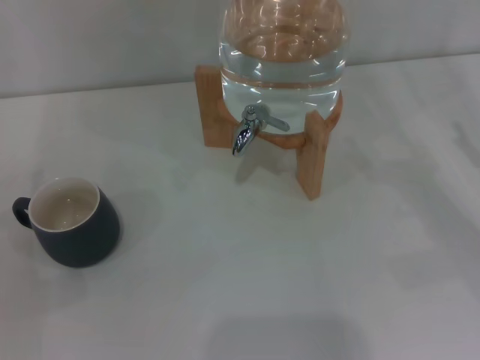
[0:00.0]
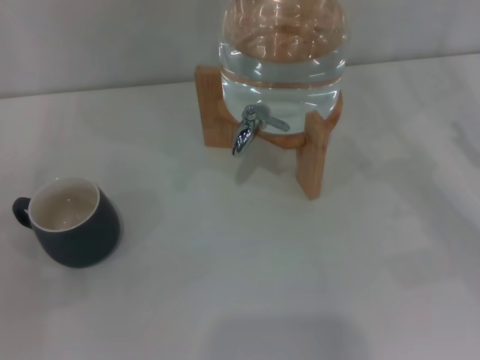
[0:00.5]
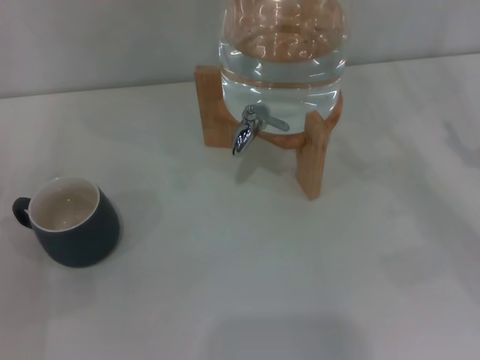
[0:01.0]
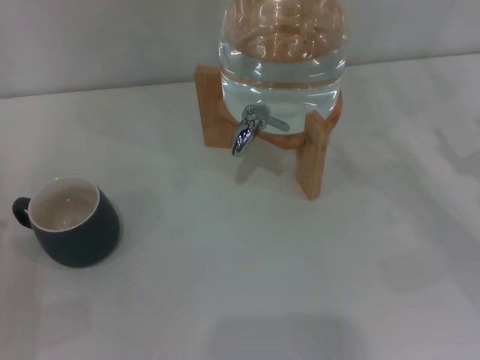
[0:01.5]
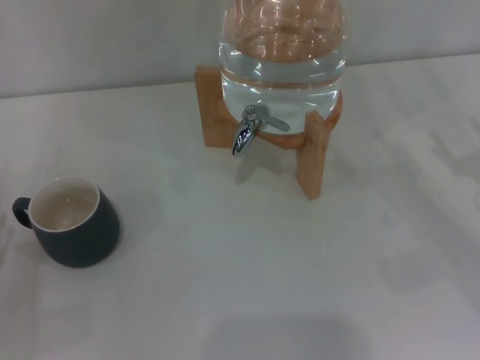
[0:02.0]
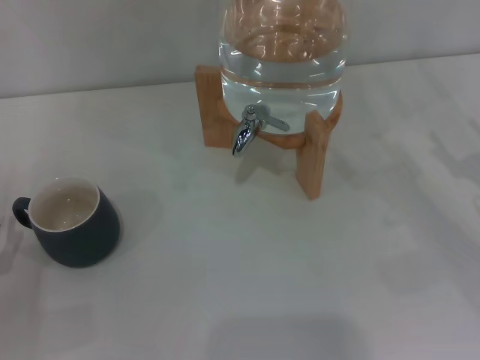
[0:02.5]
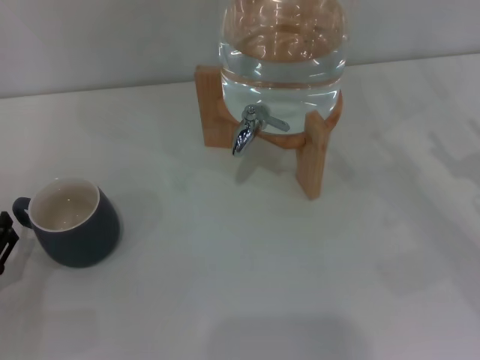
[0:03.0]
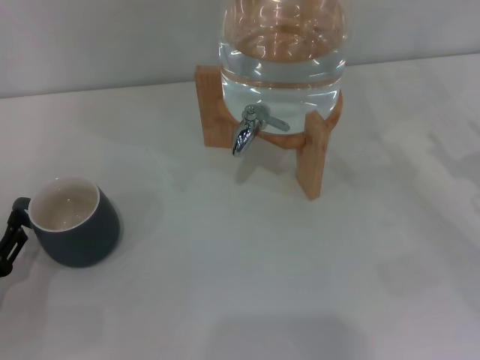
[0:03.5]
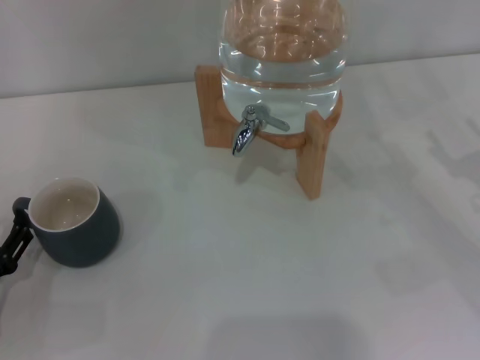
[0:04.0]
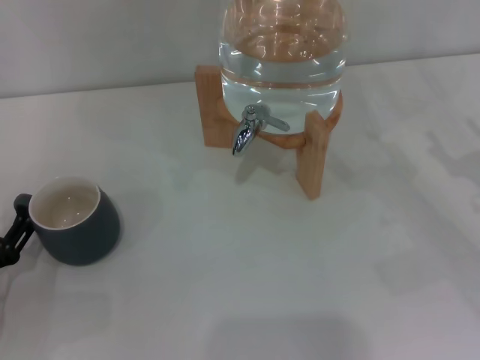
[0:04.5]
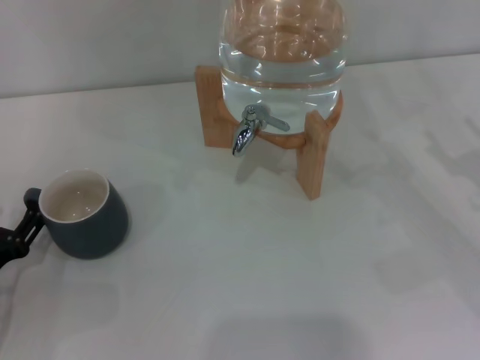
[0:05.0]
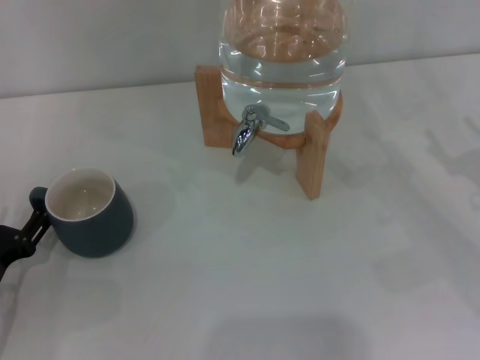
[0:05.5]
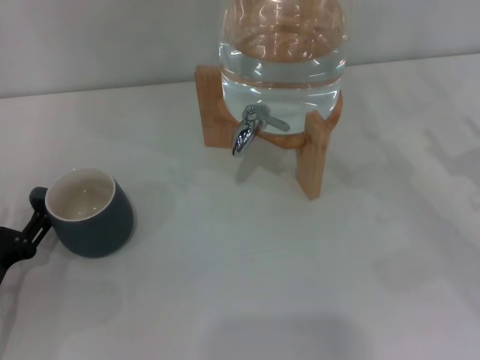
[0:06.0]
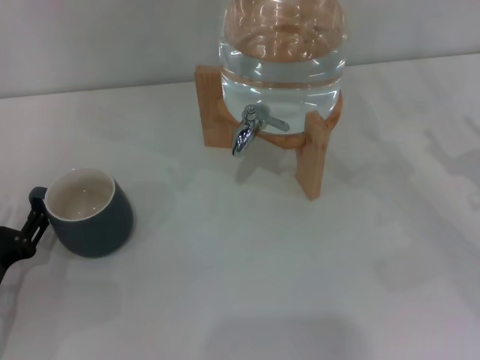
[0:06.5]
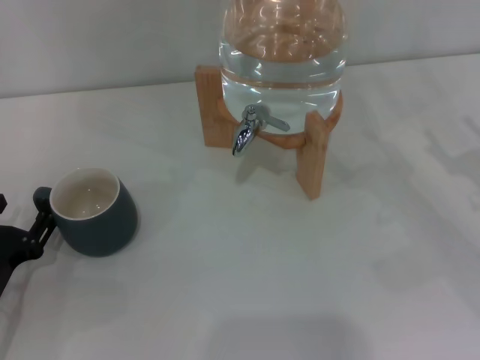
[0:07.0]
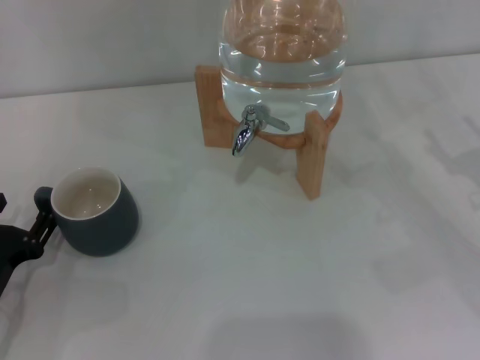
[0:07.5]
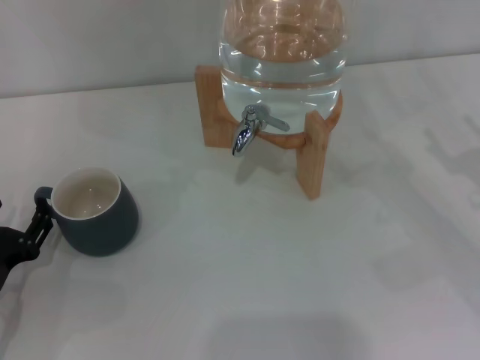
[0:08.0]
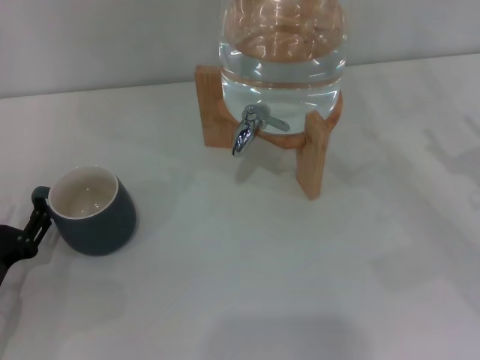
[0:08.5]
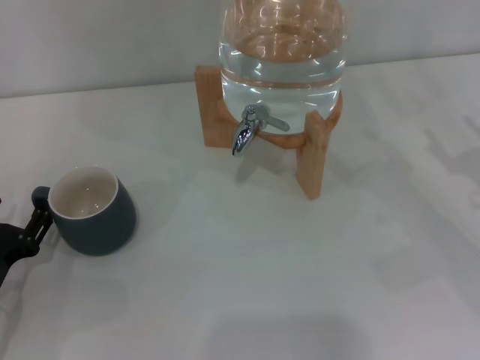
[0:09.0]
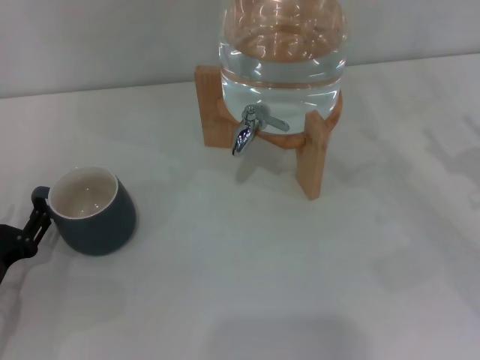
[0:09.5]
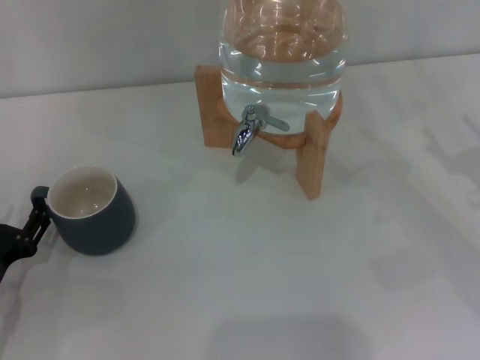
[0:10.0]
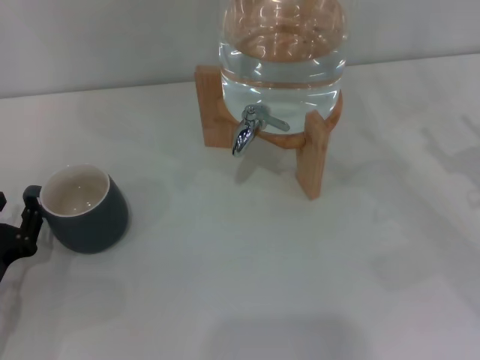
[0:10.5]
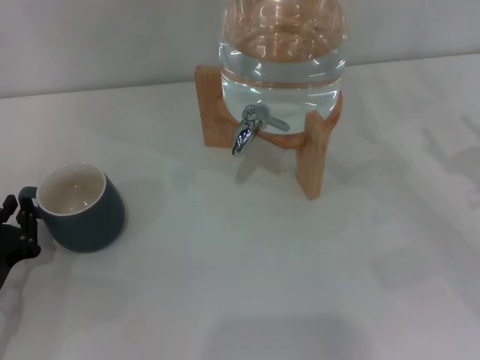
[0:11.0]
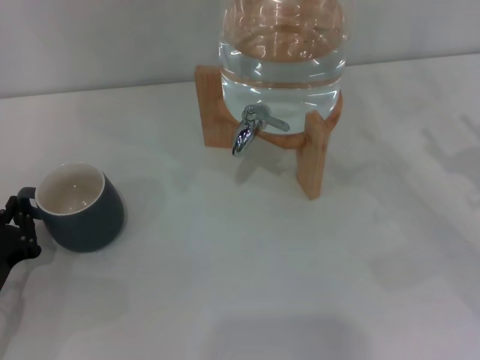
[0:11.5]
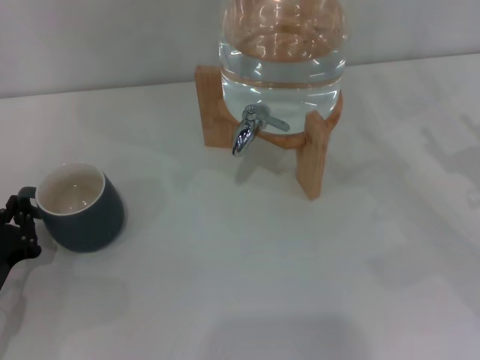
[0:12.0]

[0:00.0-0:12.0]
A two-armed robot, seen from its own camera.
Task of the whole recording: the left gripper pick up the black cup and place it horizontally under the faucet, the right gripper turn on the faucet to fill the cup, and then turn off the faucet.
0:04.0 to 0:06.0: There are only small adjustments of the grippers.
0:06.0 to 0:10.0: Both grippers stay about where they are.
0:10.0 to 0:12.0: The left gripper closes.

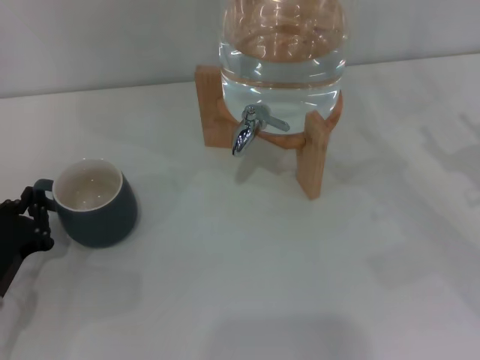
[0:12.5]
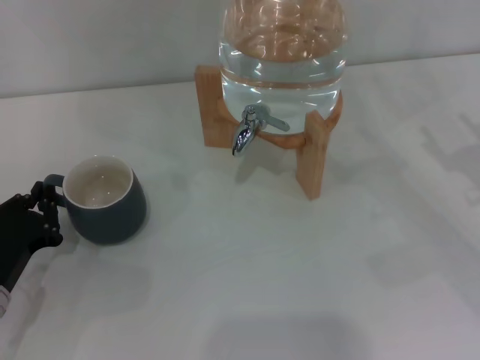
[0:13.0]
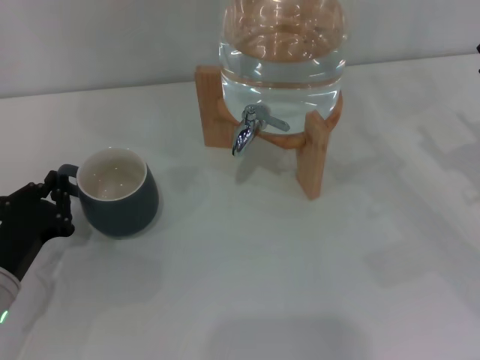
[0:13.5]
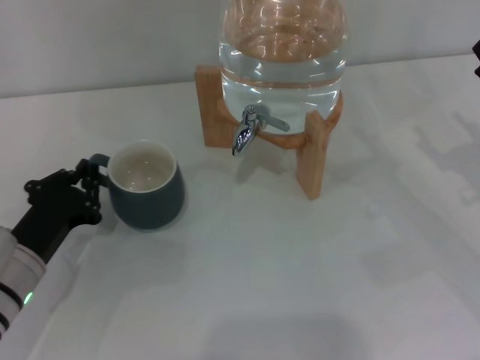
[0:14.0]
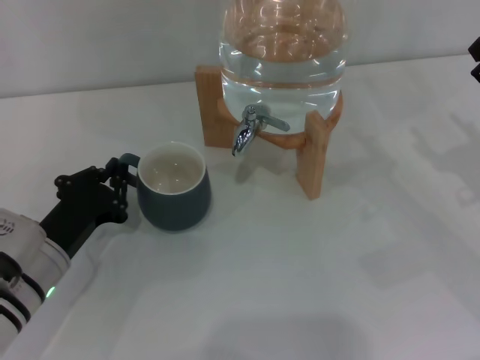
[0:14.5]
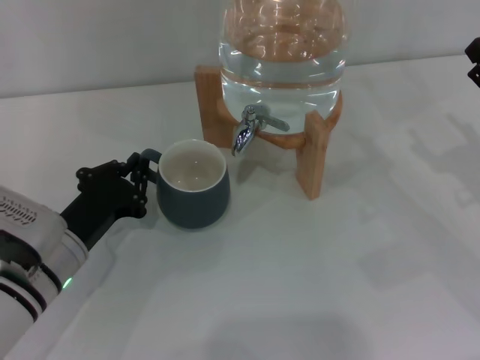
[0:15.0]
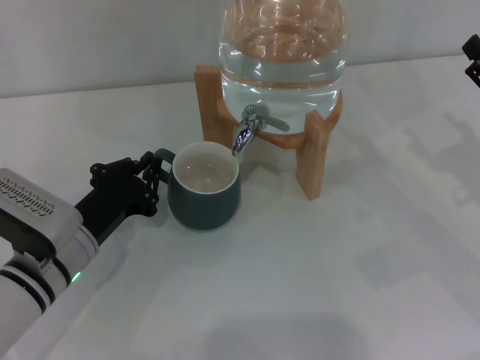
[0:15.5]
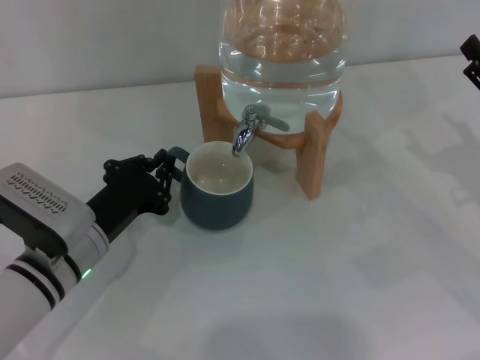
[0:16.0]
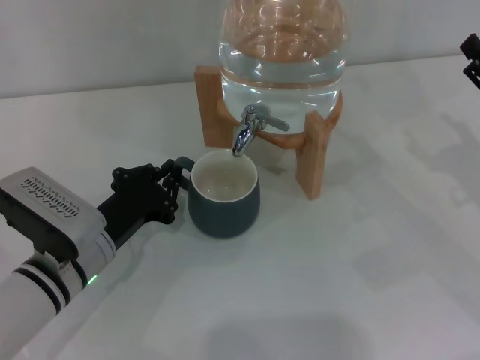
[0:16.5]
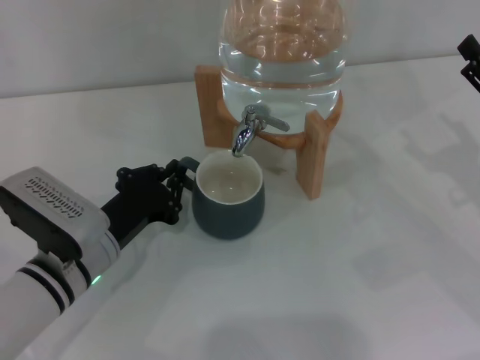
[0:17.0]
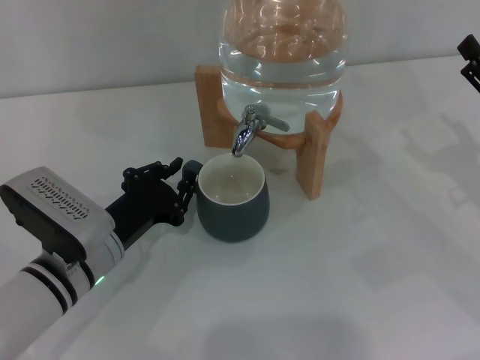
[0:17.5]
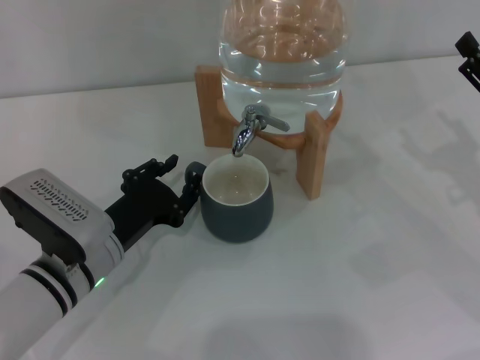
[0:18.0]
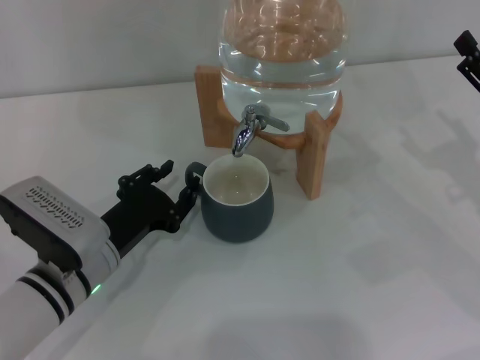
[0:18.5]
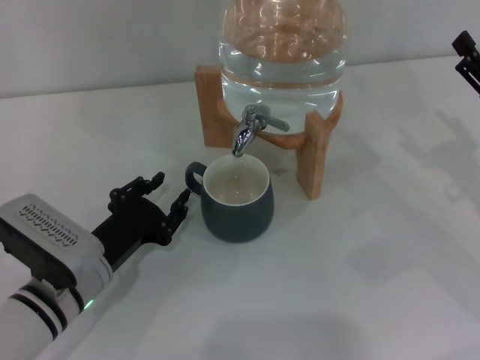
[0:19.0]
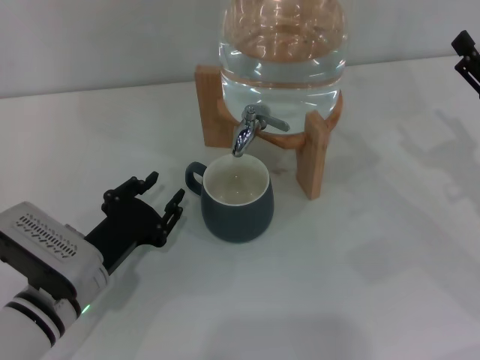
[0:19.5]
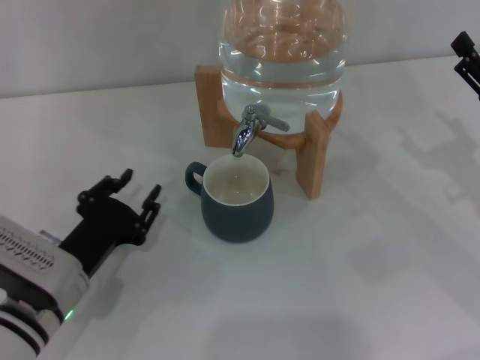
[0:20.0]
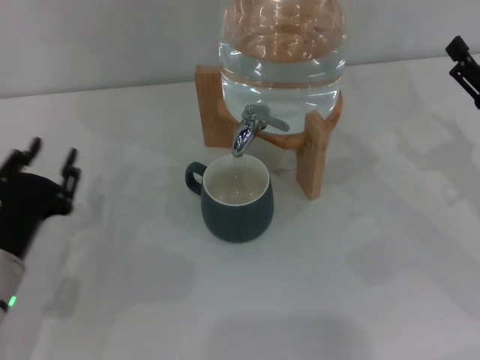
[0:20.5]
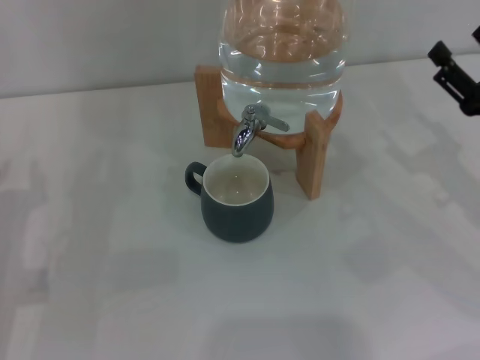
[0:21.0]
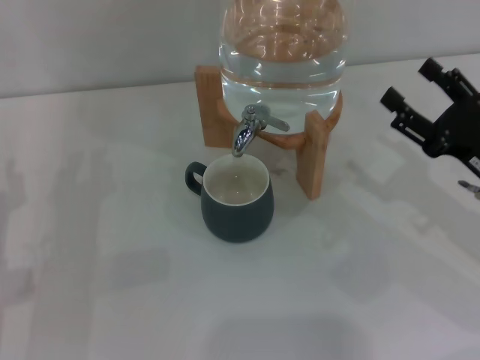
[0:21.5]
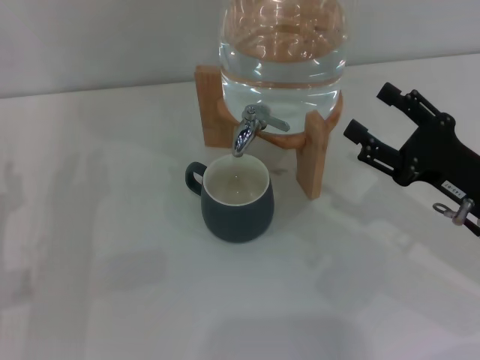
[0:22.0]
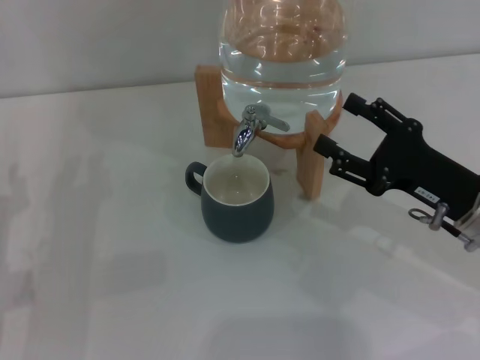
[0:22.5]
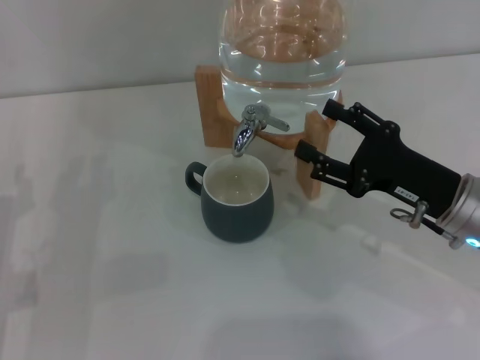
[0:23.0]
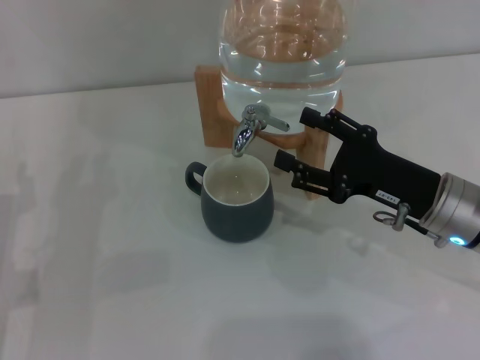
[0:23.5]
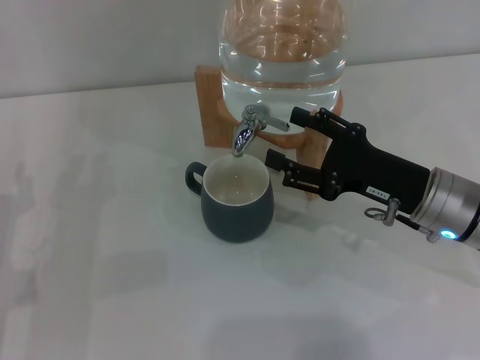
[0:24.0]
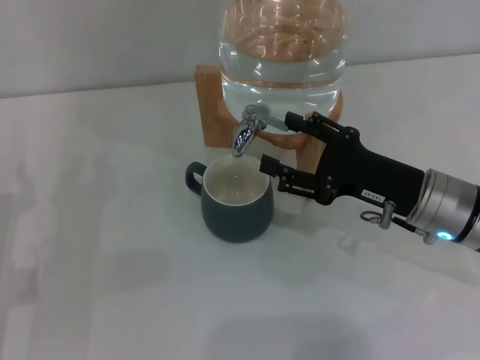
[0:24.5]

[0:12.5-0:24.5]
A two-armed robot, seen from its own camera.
Task of the whole recording: the left gripper pick up the black cup and place it horizontally under the faucet, the right gripper turn on the faucet to fill the cup, and then turn off the faucet.
Step, 0:12.5 to 0:19.5: Move the cup beneath the water dispenser nozzle with the left gripper.
0:12.5 to 0:14.5: The left gripper travels to the right by about 5 cm.
0:14.5 to 0:16.5: The grippers stay close to where they were, moving slightly.
0:16.5 to 0:18.5: The left gripper opens.
0:18.5 to 0:20.5: The left gripper heads to the left, covering some 5 cm.
0:20.5 to 0:22.5: The right gripper is displaced to the left by about 5 cm.
0:22.5 to 0:24.5: The grippers stay close to where they were, moving slightly.

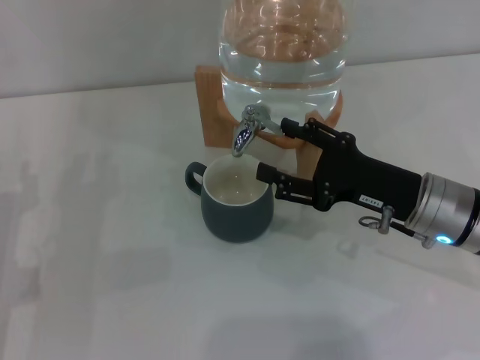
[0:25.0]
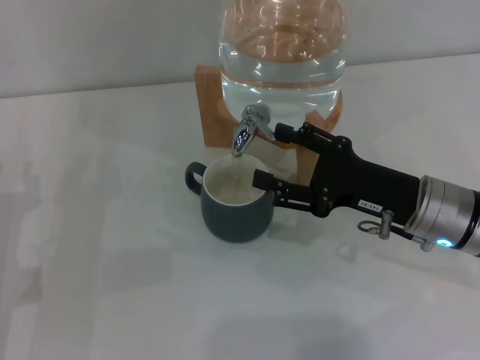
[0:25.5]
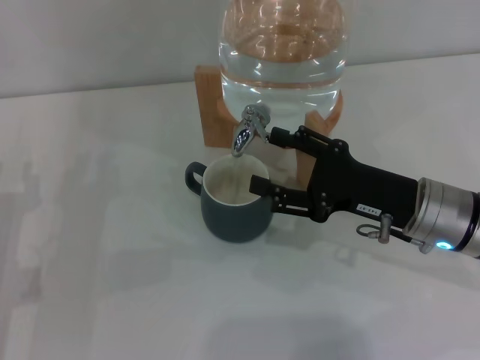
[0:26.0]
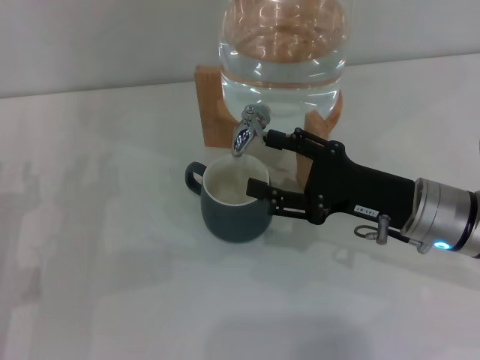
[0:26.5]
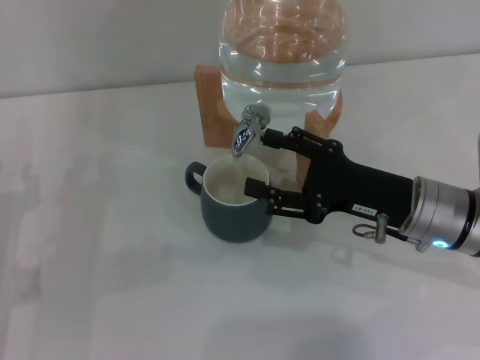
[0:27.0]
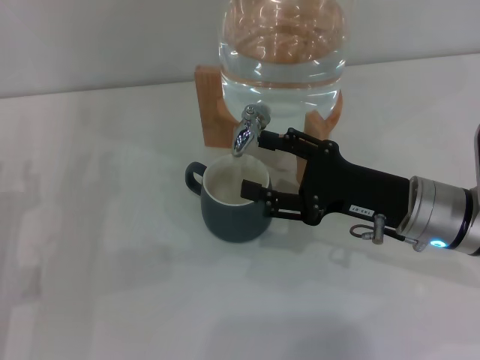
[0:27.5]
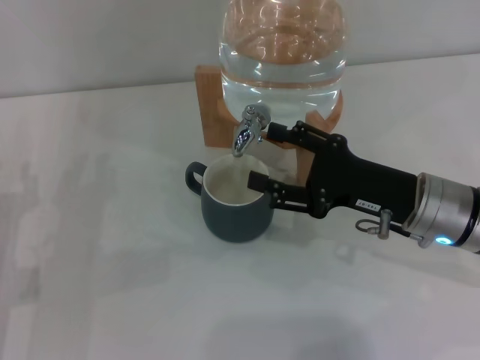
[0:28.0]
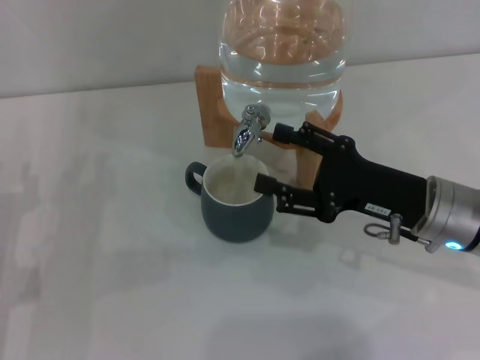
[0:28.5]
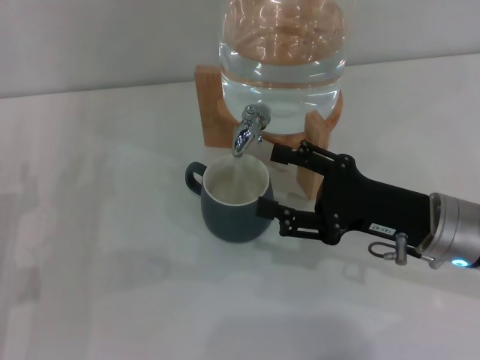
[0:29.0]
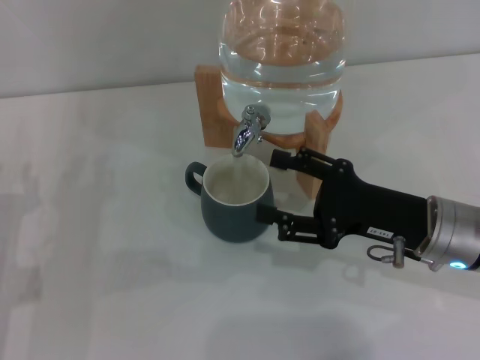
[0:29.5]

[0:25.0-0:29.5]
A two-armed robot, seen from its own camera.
Task of the whole recording: the left gripper pick up the black cup and place it horizontally under the faucet, the right gripper turn on the faucet to fill the cup, and then turn off the faucet.
0:25.0 to 0:29.5: The grippers make only small movements.
